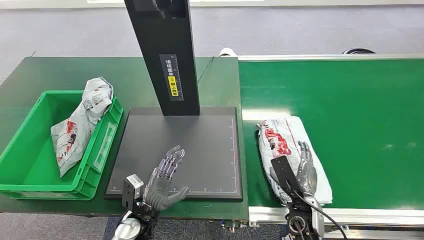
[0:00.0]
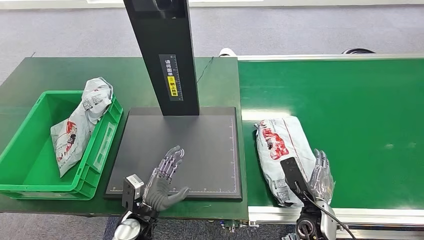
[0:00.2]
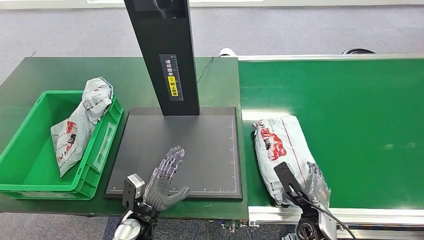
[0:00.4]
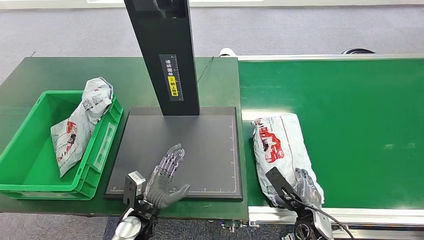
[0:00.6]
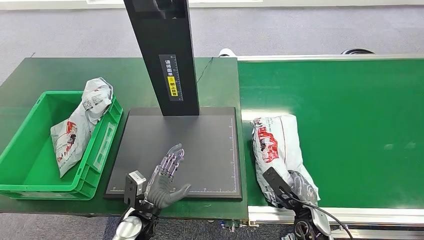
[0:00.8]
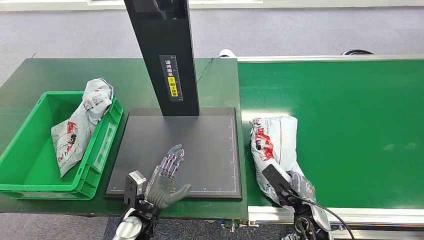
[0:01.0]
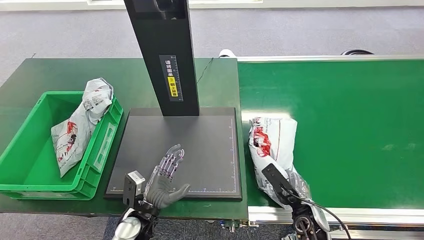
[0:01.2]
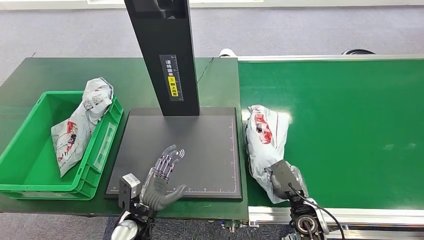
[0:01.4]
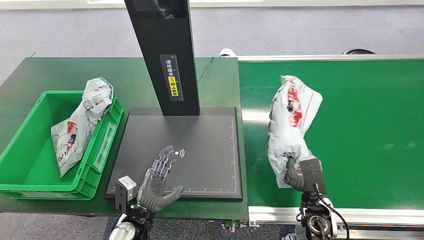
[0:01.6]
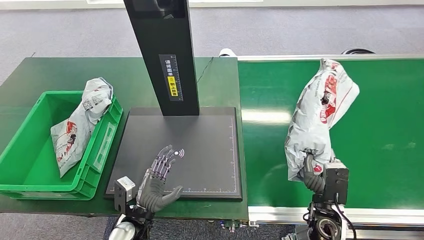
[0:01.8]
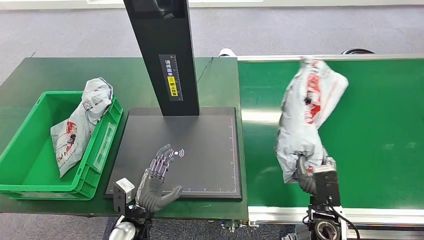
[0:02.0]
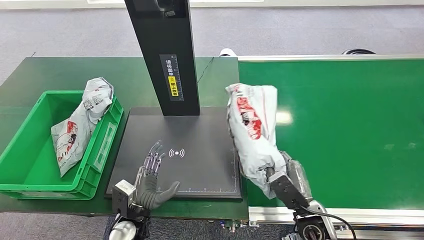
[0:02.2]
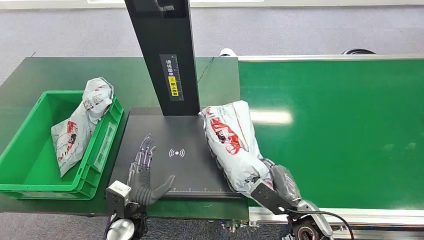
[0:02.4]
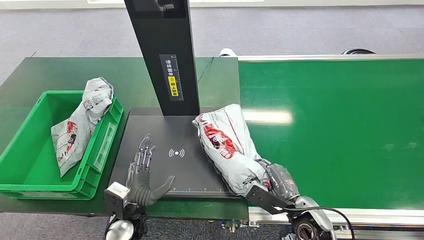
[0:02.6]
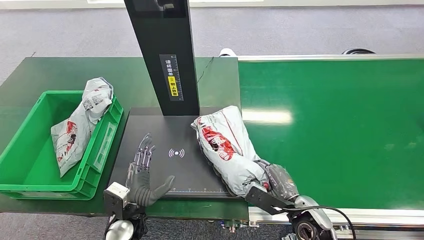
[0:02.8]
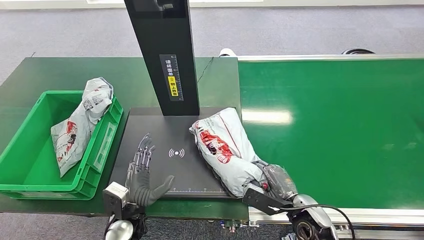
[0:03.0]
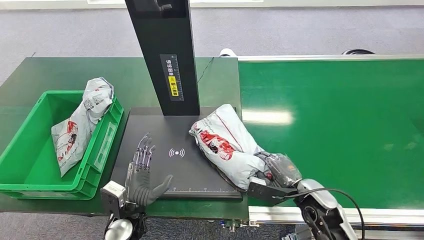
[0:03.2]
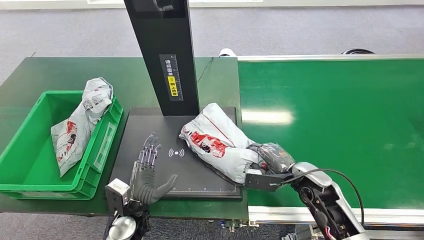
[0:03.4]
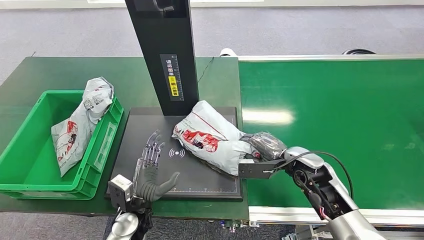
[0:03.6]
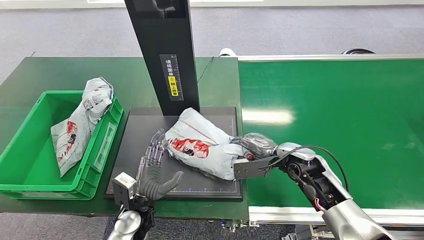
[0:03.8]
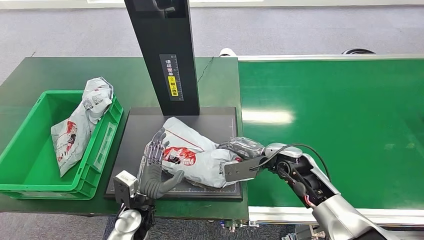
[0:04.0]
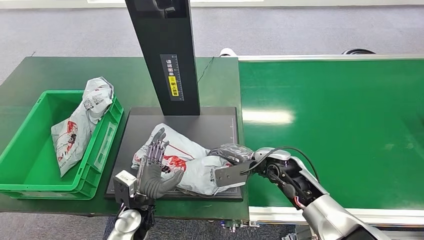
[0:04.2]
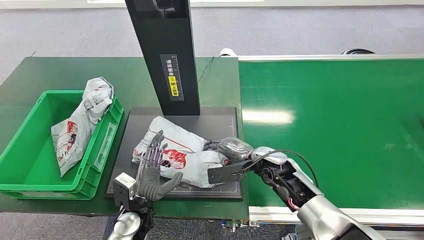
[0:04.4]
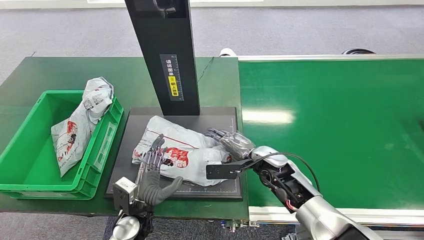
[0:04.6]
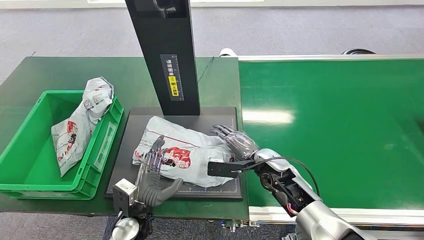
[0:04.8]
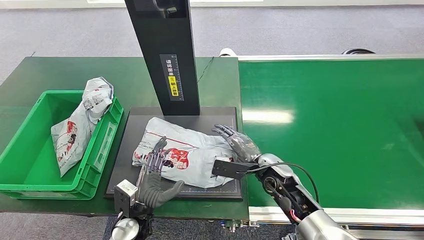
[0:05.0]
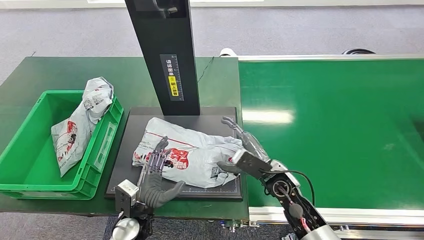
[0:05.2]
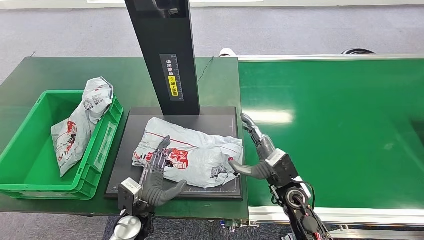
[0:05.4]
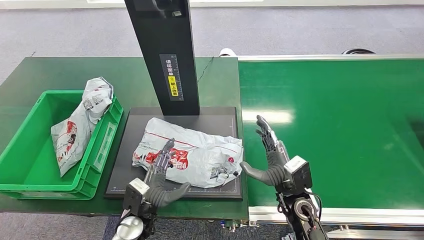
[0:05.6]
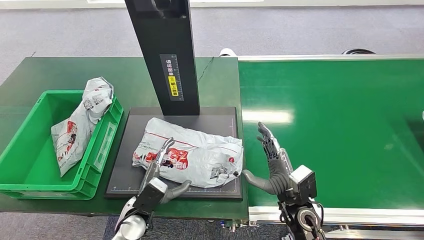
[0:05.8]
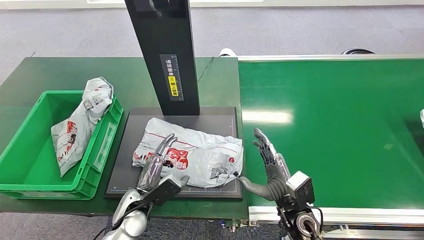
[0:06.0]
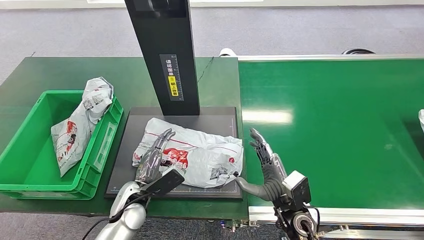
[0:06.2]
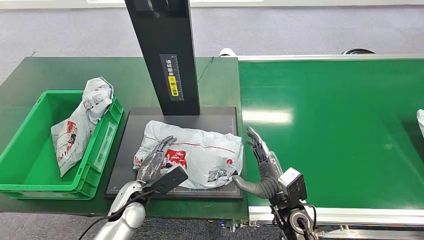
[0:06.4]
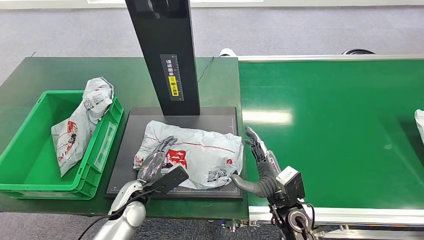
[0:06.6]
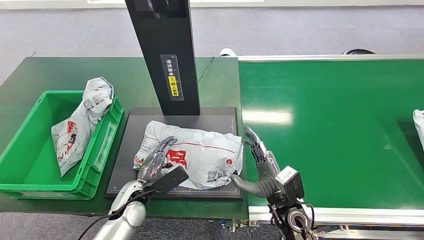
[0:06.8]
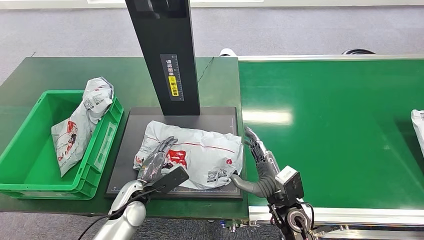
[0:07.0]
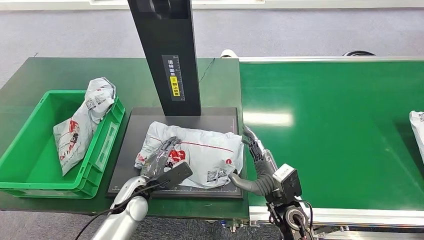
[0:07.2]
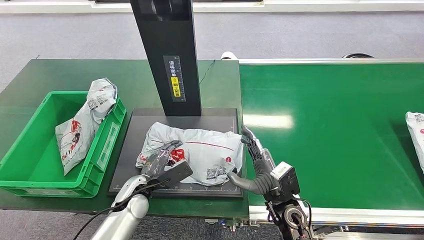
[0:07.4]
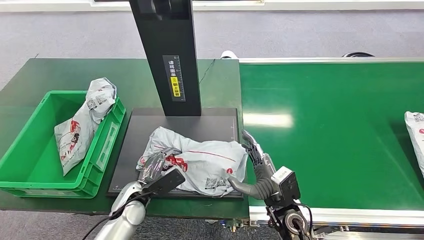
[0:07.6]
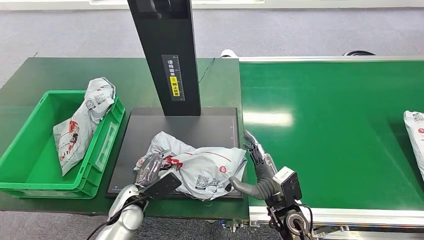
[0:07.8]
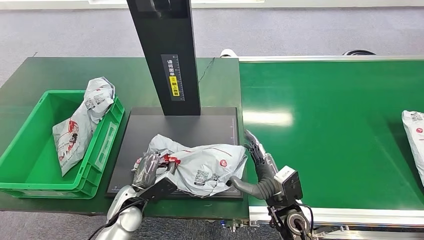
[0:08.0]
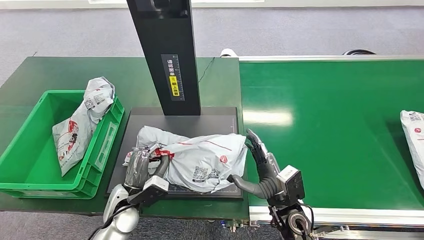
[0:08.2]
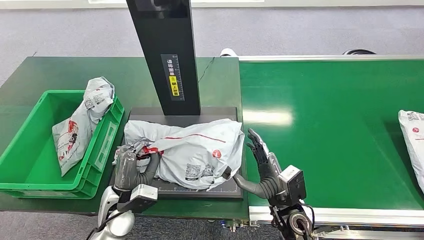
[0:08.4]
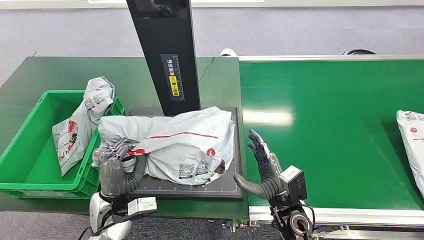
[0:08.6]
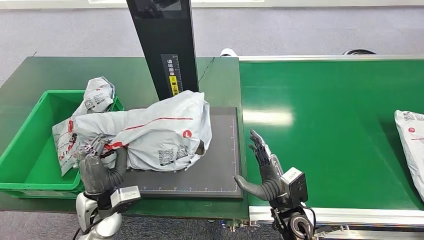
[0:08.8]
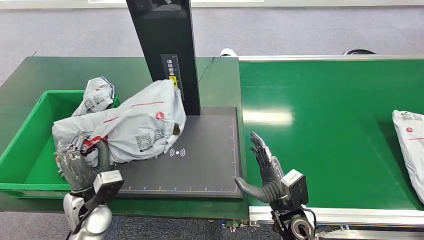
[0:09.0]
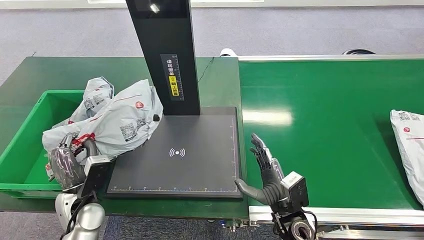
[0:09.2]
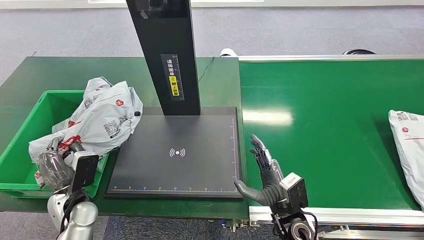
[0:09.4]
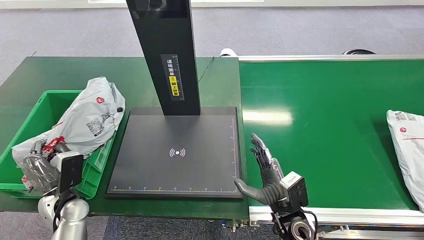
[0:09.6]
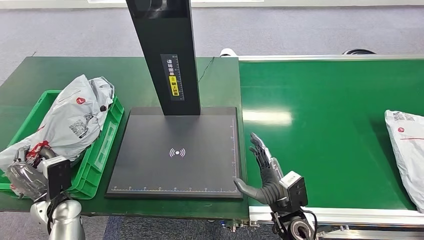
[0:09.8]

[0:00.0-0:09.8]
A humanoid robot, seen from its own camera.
Step, 0:00.0 to 0:02.0: Pick up the package from the conveyor belt.
Step, 0:02.2 to 0:05.6: Place the package onto the inbound machine.
Step, 0:05.8 to 0:09.0: Pick up the package from the inbound machine.
0:02.8 to 0:04.2: The right hand goes approximately 15 cm forward and upward.
0:04.2 to 0:05.6: The right hand heads backward, covering some 10 cm.
0:05.6 to 0:07.0: The left hand moves about 5 cm.

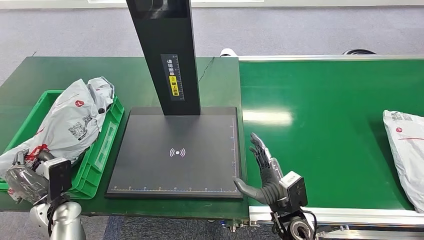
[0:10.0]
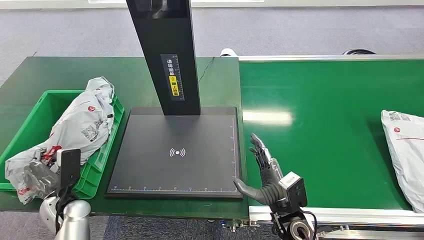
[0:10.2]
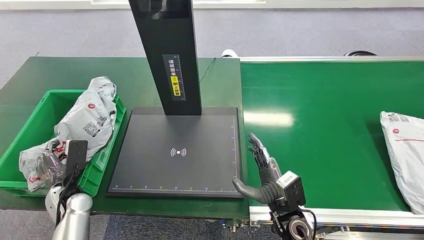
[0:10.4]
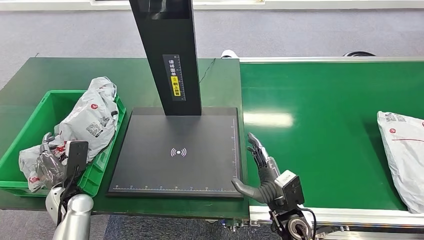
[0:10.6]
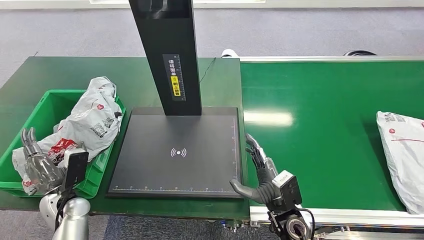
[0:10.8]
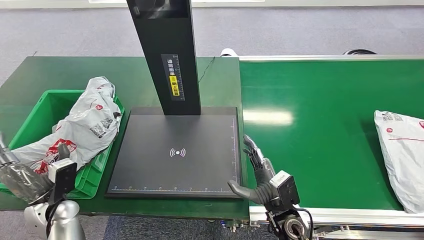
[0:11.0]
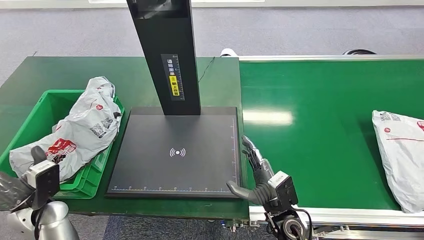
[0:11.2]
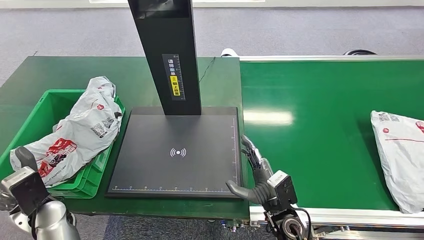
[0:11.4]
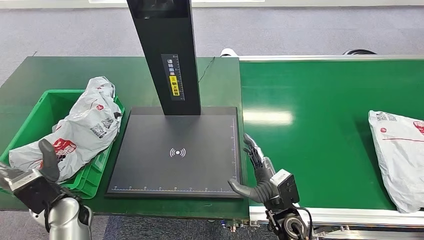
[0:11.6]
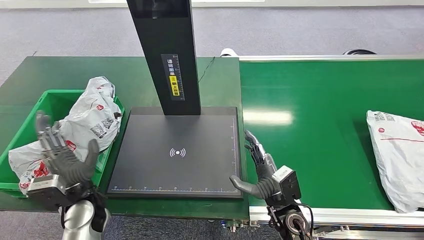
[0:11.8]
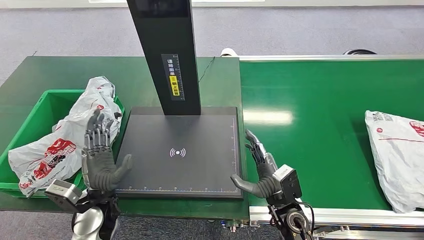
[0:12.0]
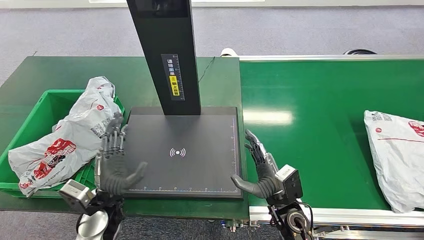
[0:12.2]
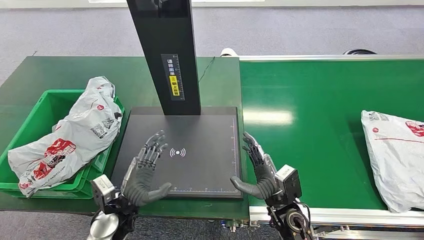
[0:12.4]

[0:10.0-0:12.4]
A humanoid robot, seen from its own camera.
Step, 0:10.0 to 0:12.4: Place the package into the parcel locker.
0:11.2 to 0:12.4: The left hand moves to the right, roughly 15 cm.

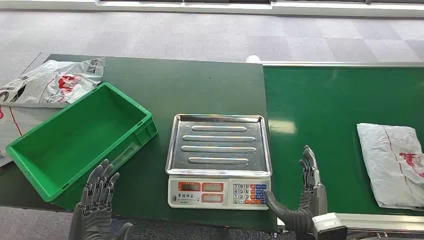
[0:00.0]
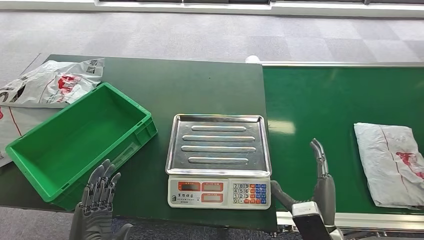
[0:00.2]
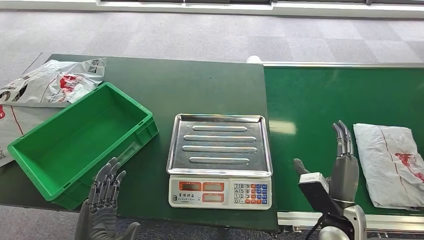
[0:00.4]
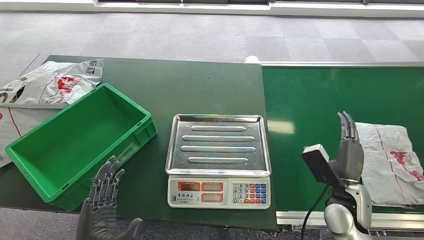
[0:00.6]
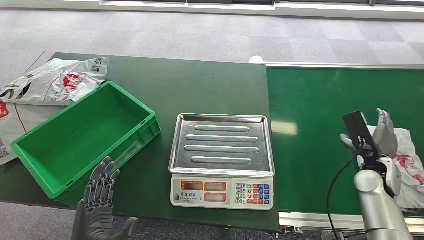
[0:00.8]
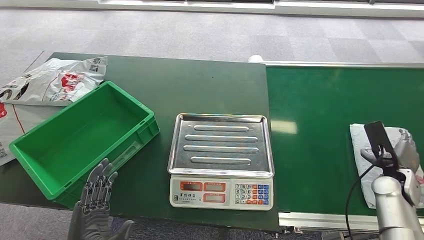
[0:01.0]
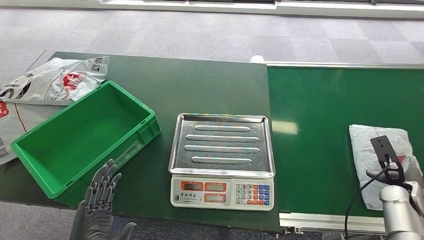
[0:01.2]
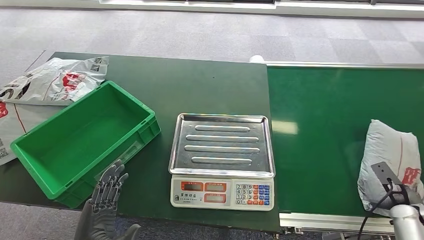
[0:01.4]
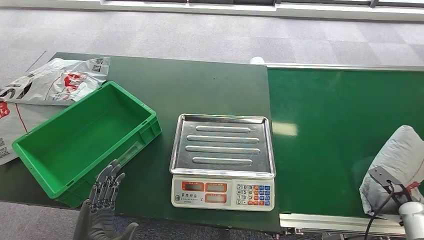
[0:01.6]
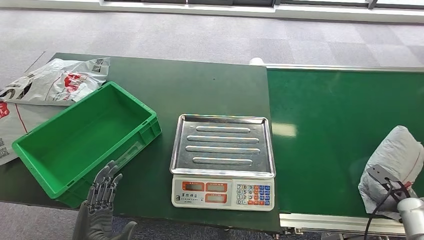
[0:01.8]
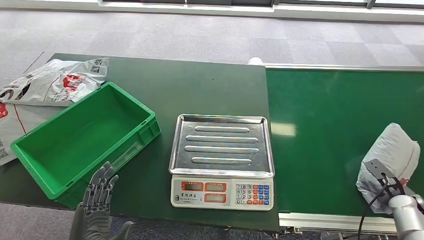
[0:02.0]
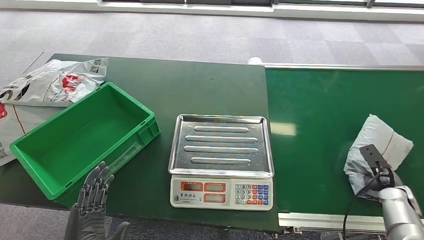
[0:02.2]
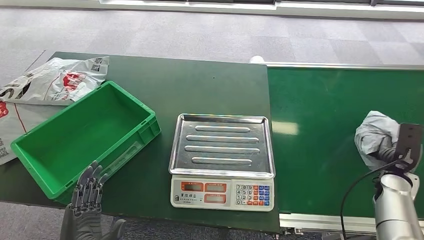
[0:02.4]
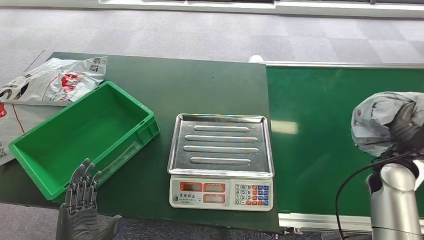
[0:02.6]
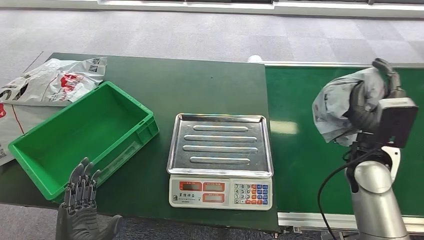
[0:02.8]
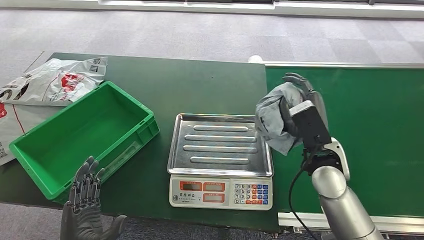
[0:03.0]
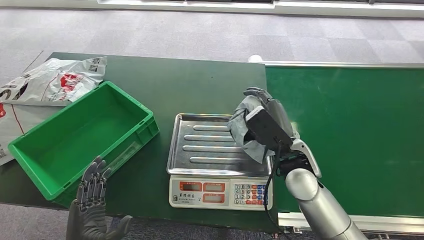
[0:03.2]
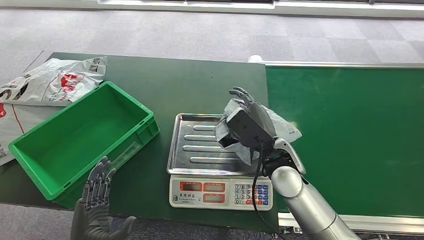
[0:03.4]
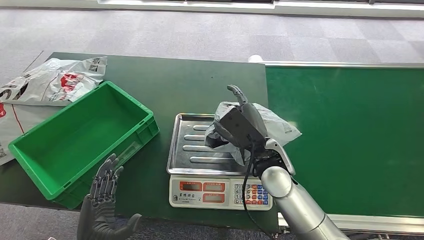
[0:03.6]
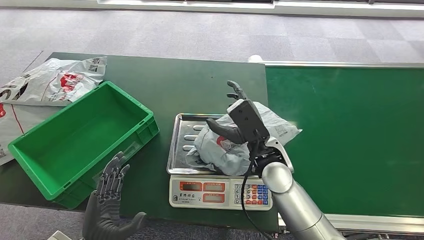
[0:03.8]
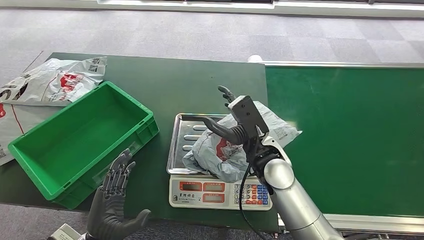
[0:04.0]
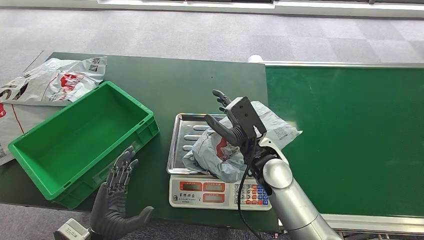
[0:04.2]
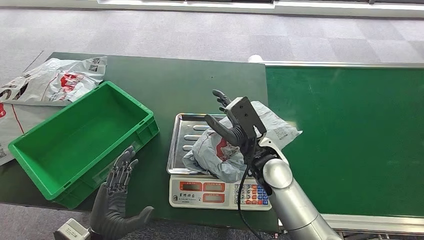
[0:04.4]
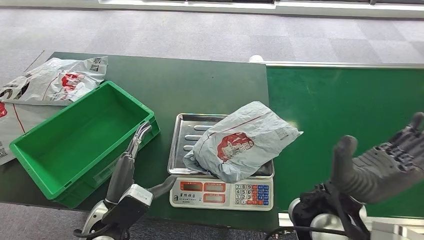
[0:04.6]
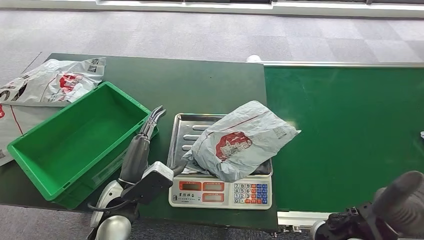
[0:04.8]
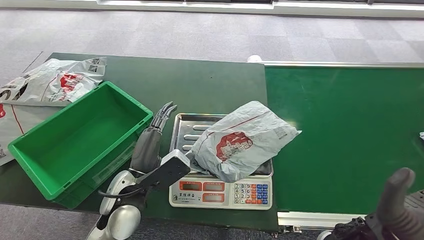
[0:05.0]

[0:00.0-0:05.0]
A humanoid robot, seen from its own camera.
Step, 0:00.0 to 0:02.6: Pick up the package from the conveyor belt.
Step, 0:03.0 to 0:04.4: Place the package onto the inbound machine.
0:03.4 to 0:05.0: The right hand travels backward and to the right by some 20 cm. The left hand is displaced forward, to the right and upward by roughly 15 cm.
